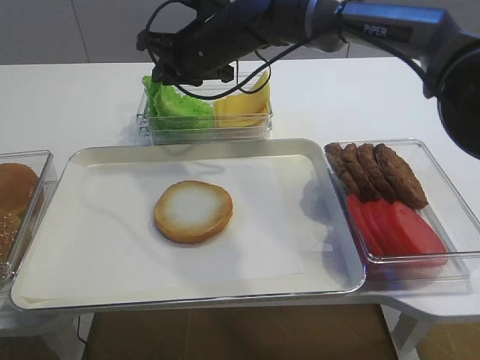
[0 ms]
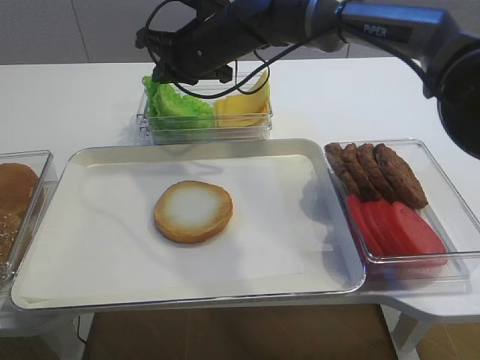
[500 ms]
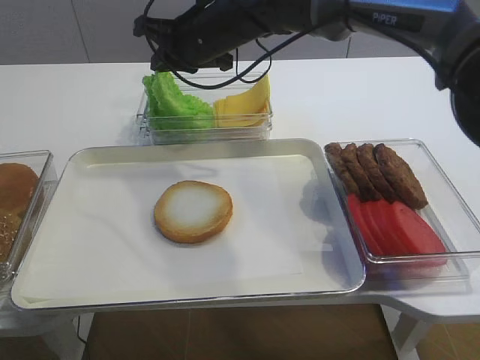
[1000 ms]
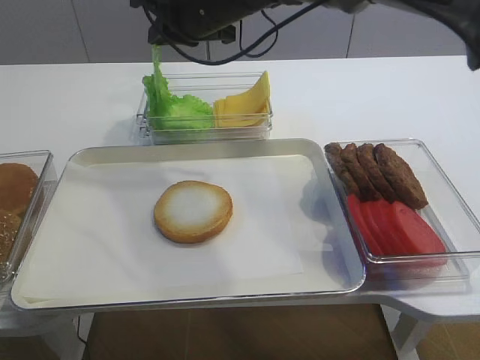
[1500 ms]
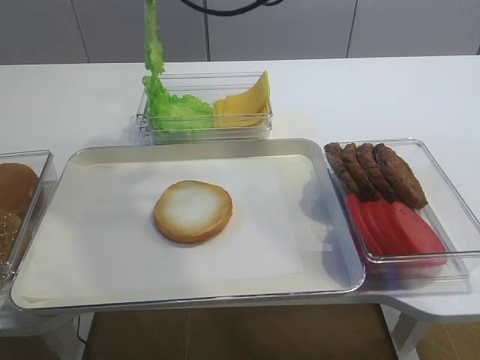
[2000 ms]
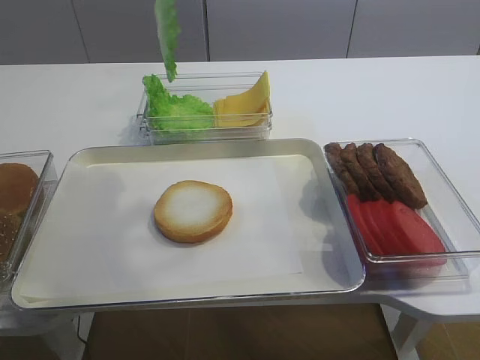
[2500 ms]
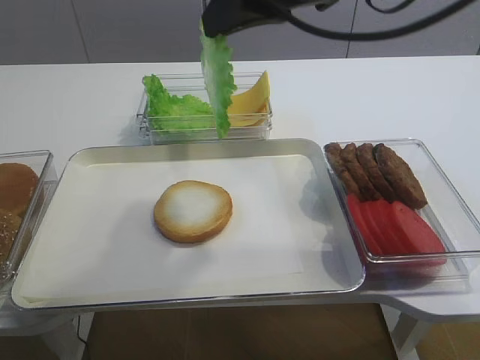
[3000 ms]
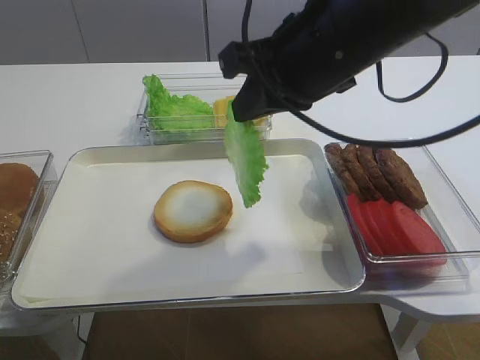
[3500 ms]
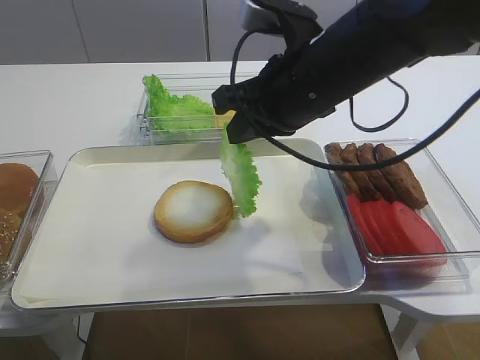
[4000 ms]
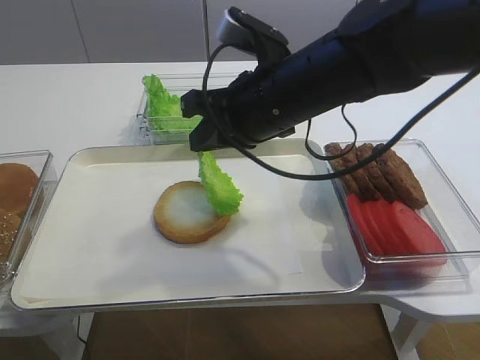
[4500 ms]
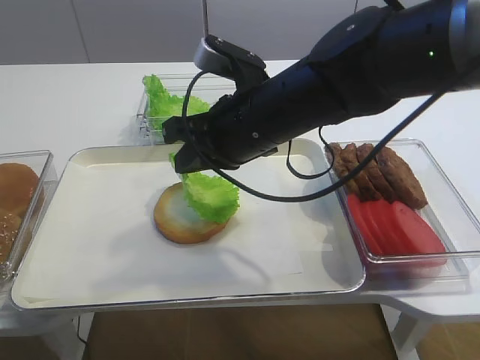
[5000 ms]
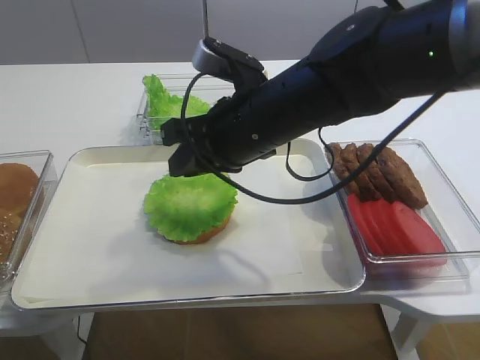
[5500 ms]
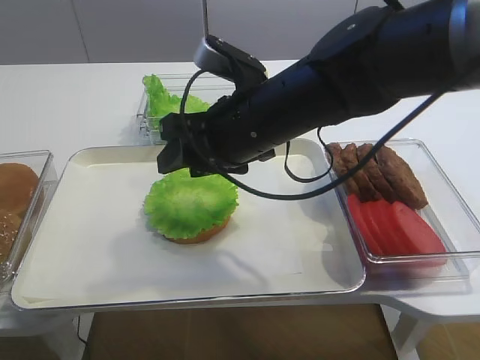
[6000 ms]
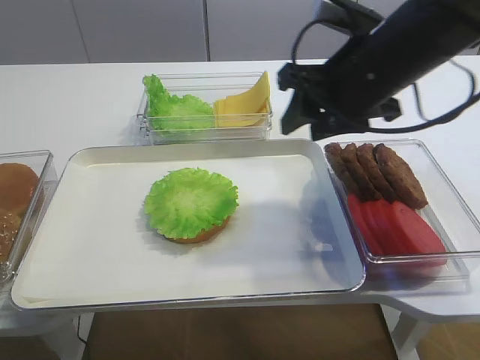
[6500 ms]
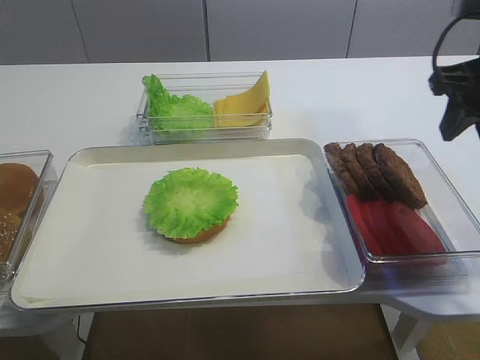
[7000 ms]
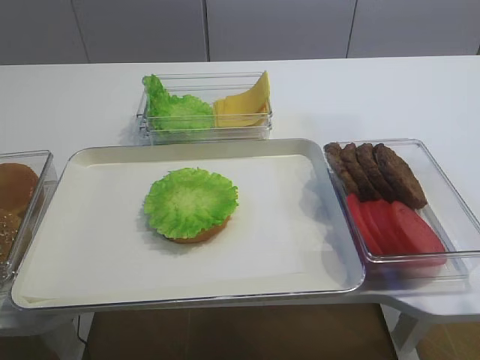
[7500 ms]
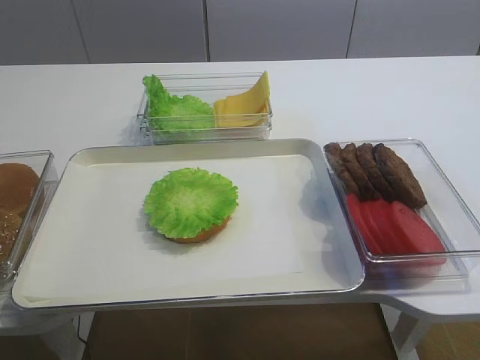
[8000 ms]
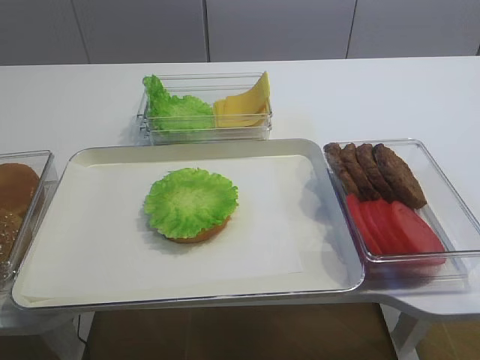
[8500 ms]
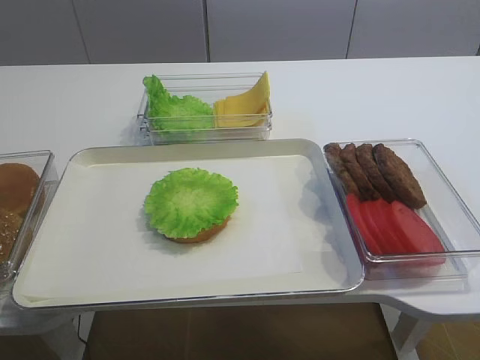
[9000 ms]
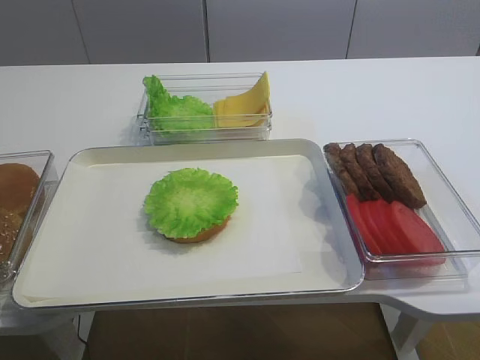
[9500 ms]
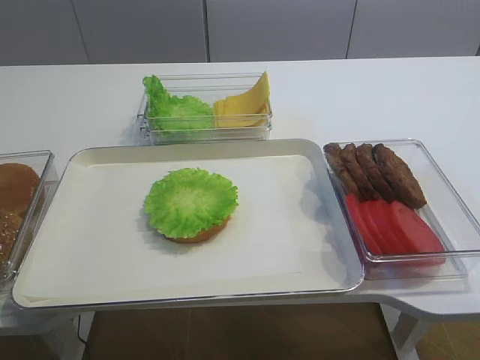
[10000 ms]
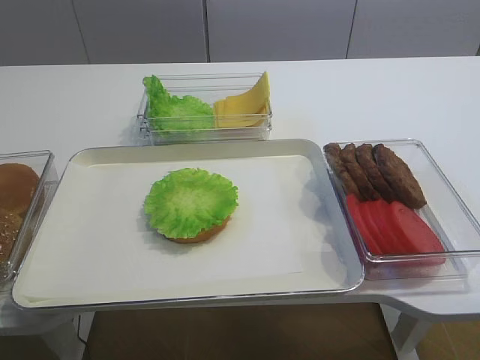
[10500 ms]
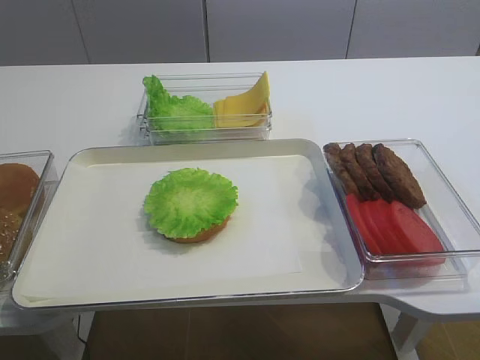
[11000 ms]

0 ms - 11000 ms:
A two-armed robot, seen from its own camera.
Step, 0 ms - 2500 ms: Pick up the lettuce leaf with the right gripper.
Step, 3000 ms - 6000 ms: Place the lettuce leaf on the bread slice with the right gripper.
0 ms - 2000 ms: The right gripper goes some 10 cm upward.
2000 ms - 3500 ms: The right gripper shifts some 15 cm backward and to the right.
3500 ms - 5500 ms: The right gripper travels downward and to the left by approximately 10 cm.
5500 ms - 7500 ms: The right gripper shifts approximately 25 cm to the right and upward, and opens up.
7500 ms - 9000 ms: The right gripper shifts approximately 25 cm backward.

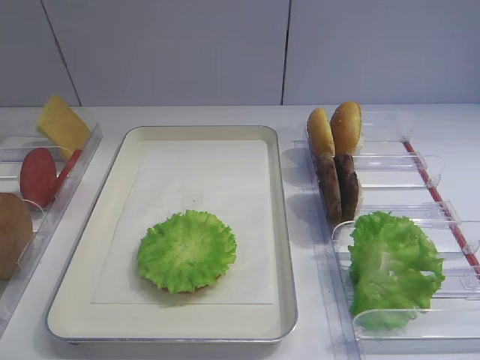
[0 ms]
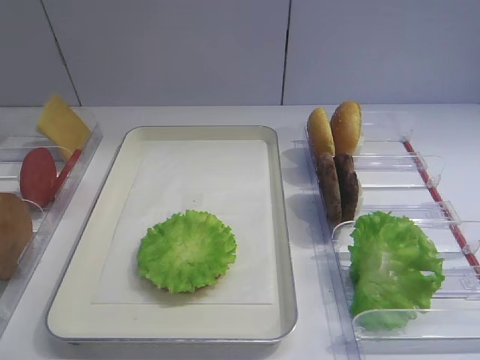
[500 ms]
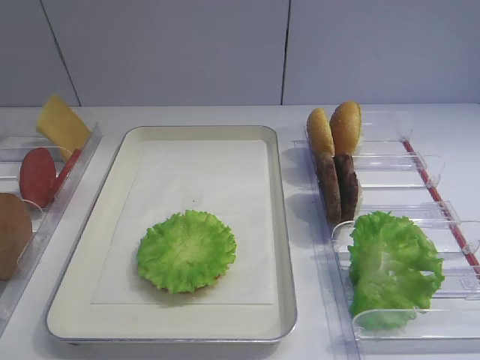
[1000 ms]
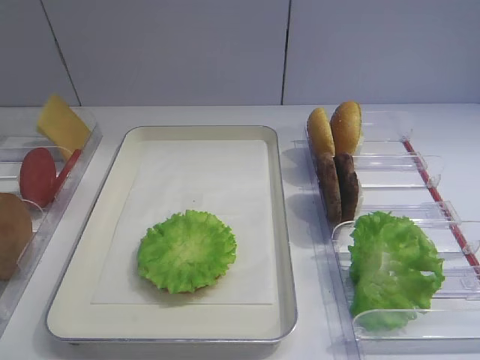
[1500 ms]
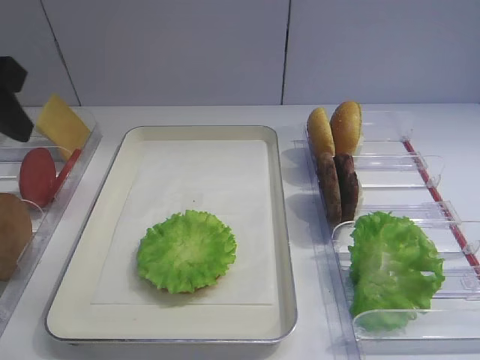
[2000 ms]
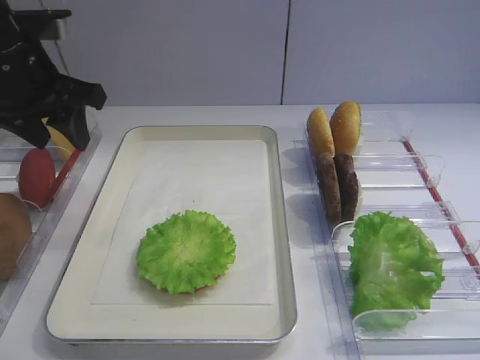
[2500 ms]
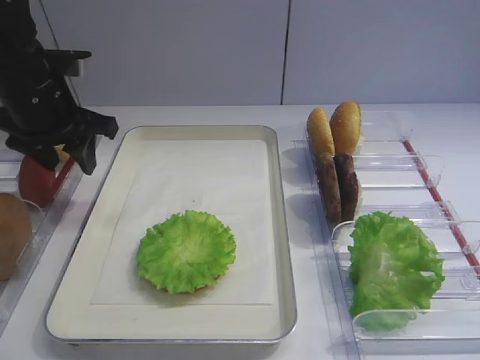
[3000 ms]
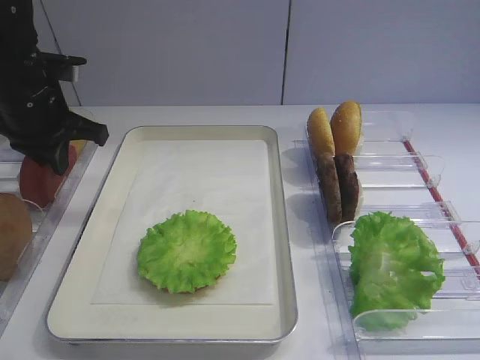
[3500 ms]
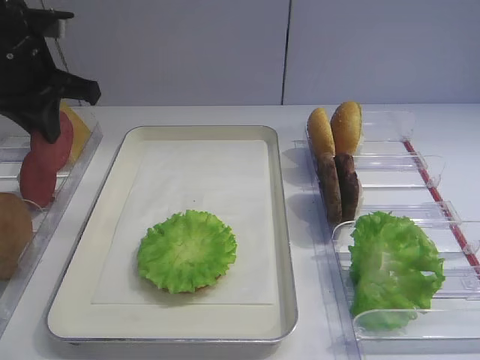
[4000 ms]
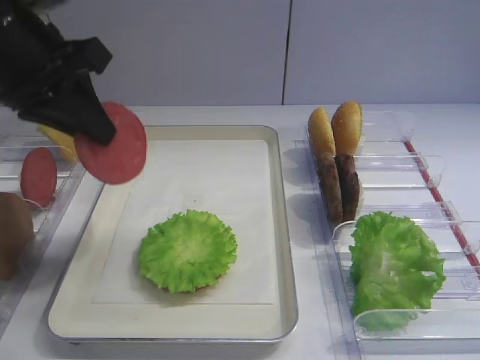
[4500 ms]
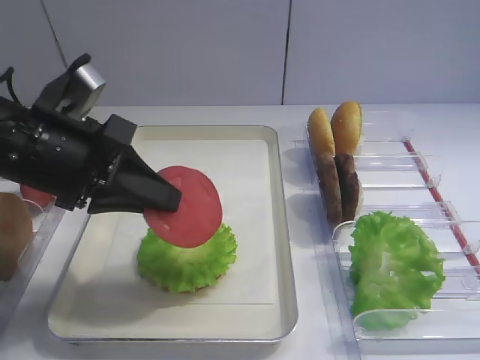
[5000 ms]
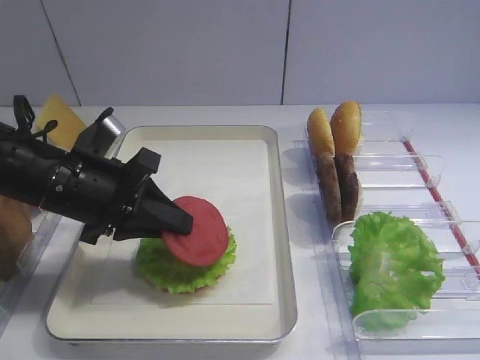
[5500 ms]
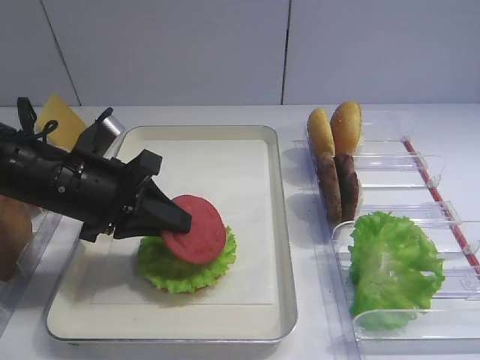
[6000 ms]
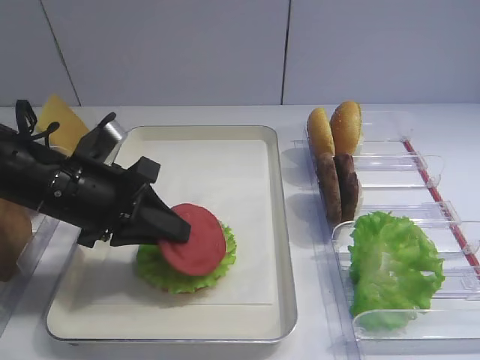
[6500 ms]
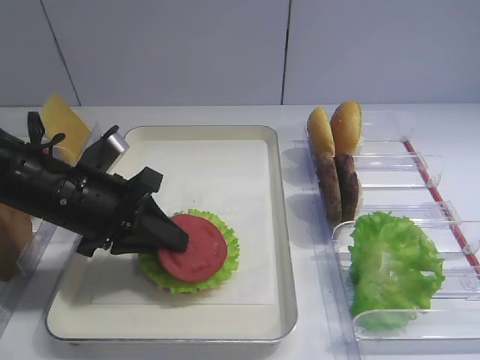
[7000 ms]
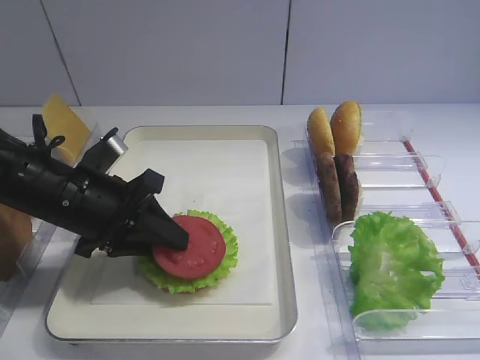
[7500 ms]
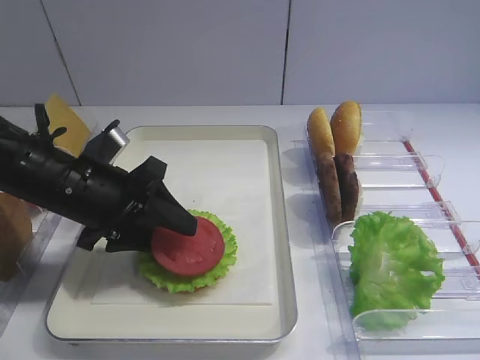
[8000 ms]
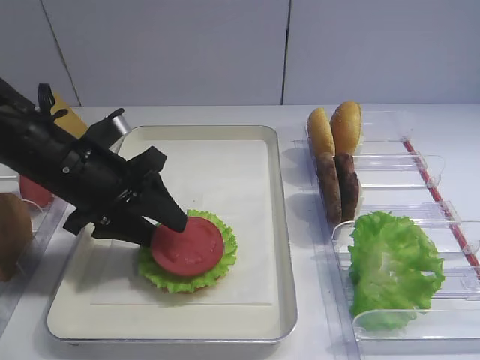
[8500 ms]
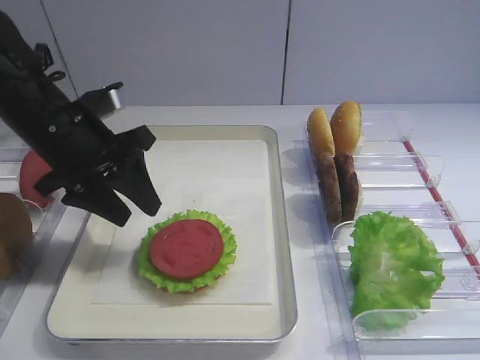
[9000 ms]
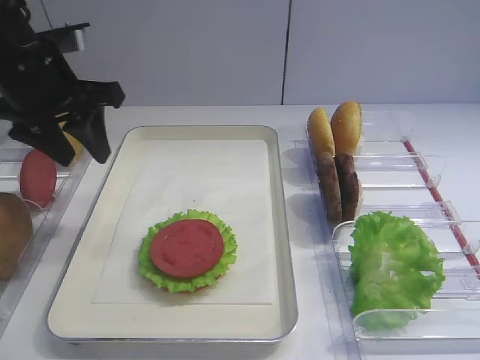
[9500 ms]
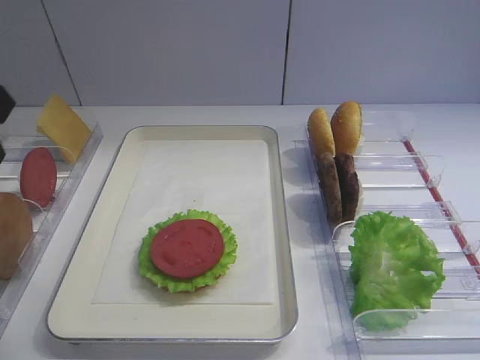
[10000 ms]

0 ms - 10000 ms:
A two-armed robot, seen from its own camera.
Step, 0 ms - 3500 ms: Pick up the tomato slice with the left gripper.
Step, 4000 ms - 9000 ms: Place the tomato slice on the lettuce leaf with the left gripper.
2000 ms - 4000 ms: The left gripper heads forward, covering some 10 cm, and closes.
4000 ms - 6000 ms: The left gripper is displaced downward, backward and to the right by roughly 15 cm.
6000 ms - 8000 ms: The left gripper opens.
8000 ms - 10000 ms: The left gripper travels upward and to the left by about 20 cm.

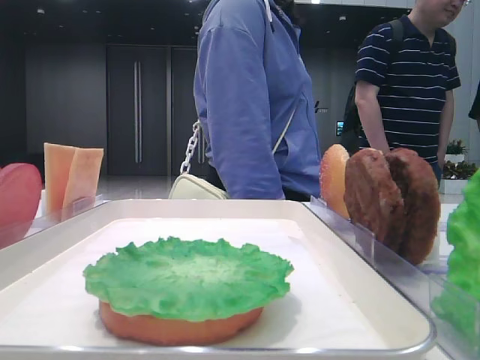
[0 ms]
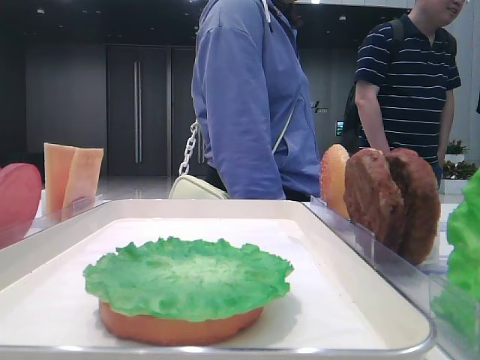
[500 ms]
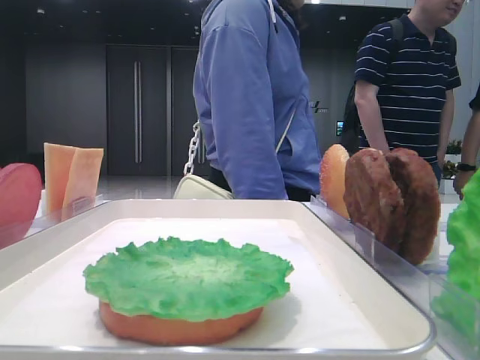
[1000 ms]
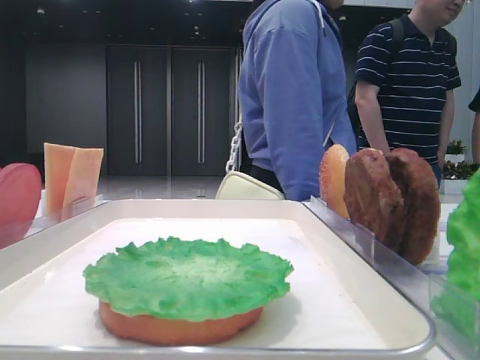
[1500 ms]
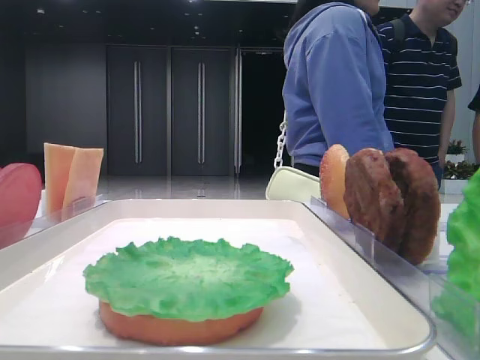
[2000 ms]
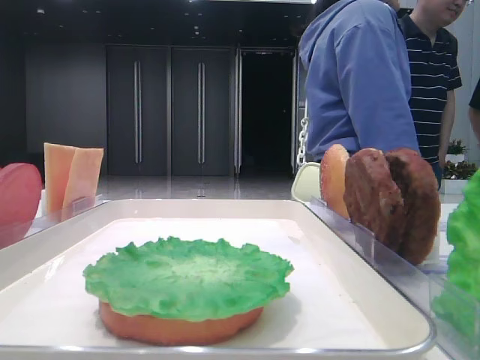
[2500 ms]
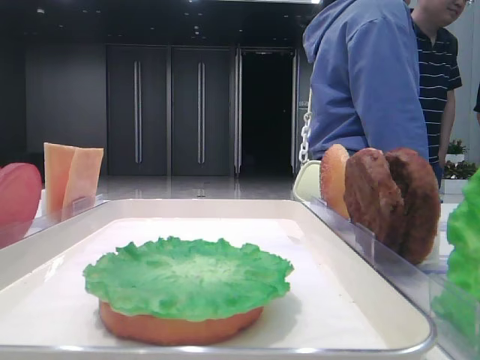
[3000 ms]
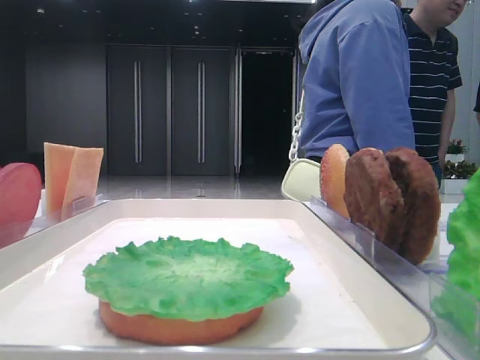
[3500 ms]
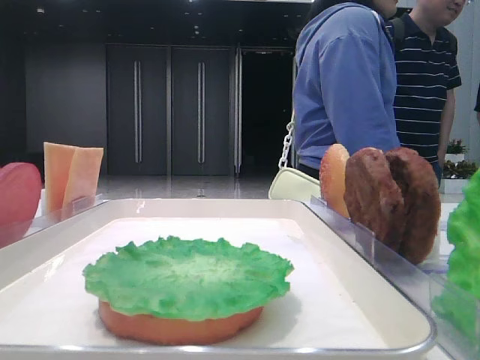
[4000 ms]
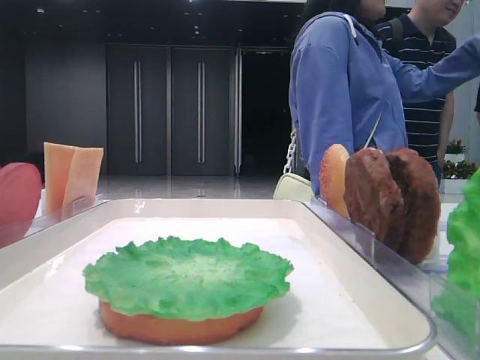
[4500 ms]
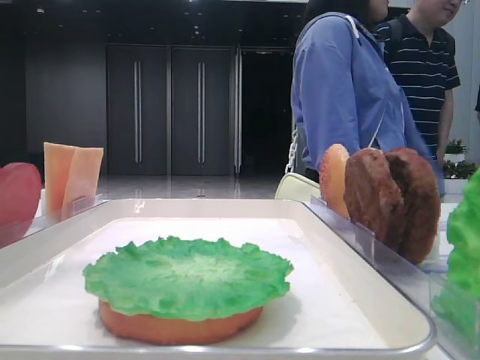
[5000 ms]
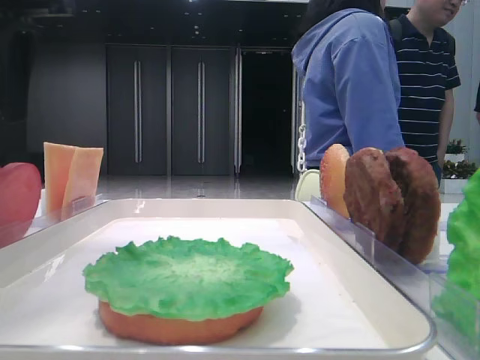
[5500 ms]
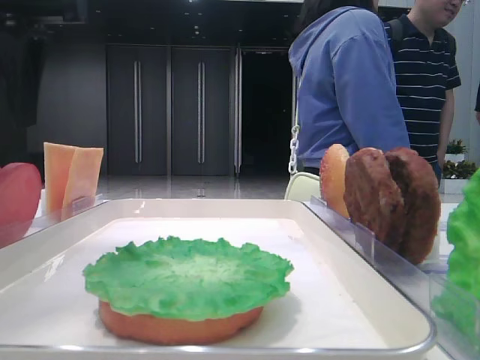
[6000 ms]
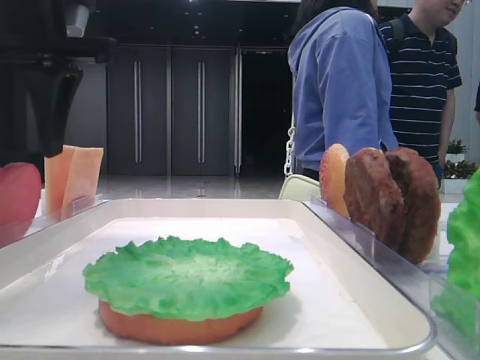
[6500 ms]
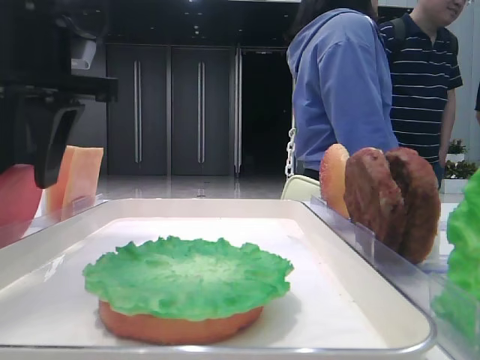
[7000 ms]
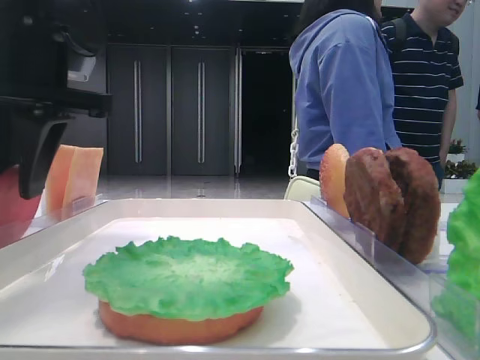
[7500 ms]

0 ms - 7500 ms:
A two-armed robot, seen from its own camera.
2000 ms - 4000 ms: The left gripper goes approximately 25 cm forward.
4000 ms - 5500 ms: The left gripper moves to the right, about 15 cm.
5500 ms - 7500 ms: The left gripper heads downward, covering some 5 cm.
